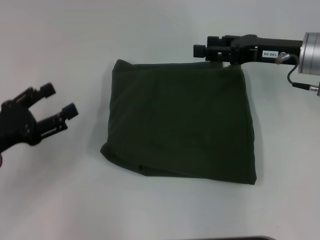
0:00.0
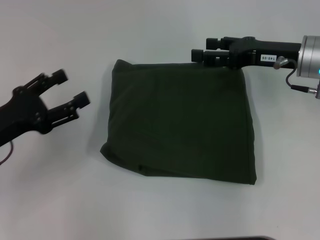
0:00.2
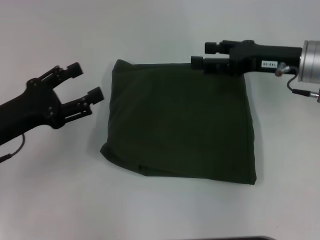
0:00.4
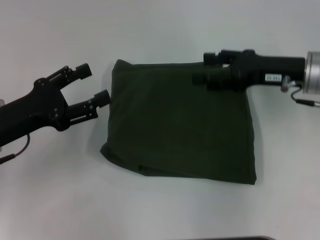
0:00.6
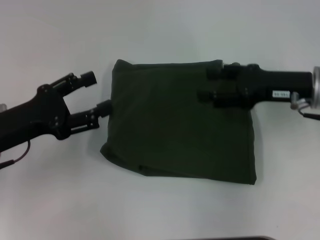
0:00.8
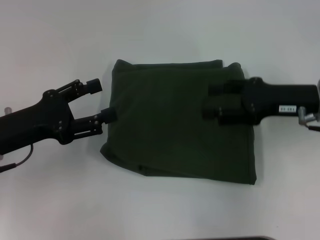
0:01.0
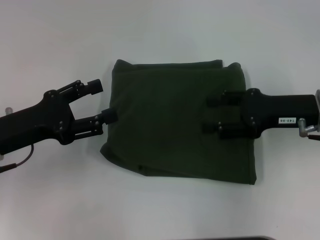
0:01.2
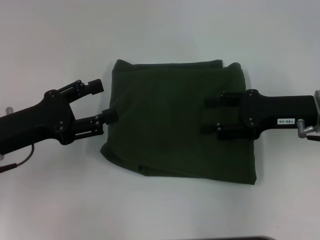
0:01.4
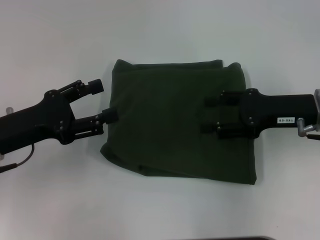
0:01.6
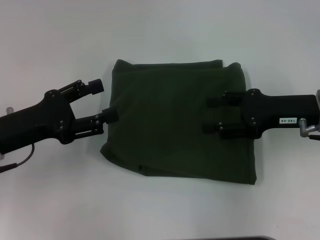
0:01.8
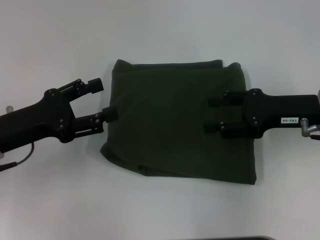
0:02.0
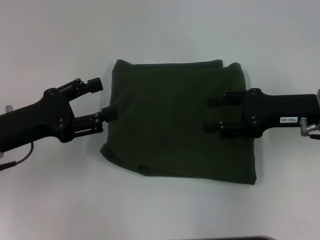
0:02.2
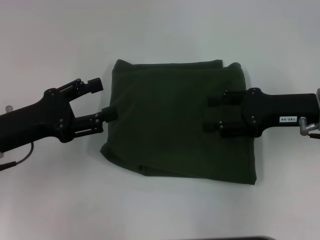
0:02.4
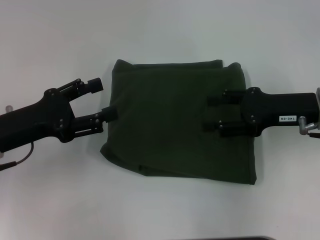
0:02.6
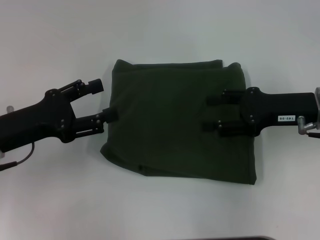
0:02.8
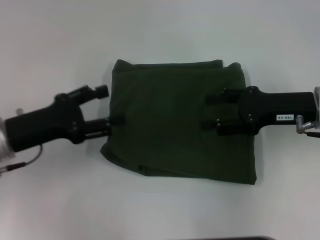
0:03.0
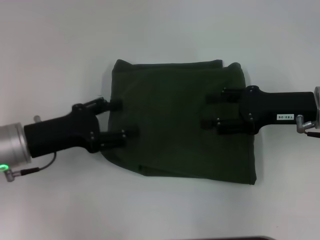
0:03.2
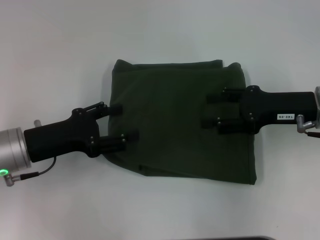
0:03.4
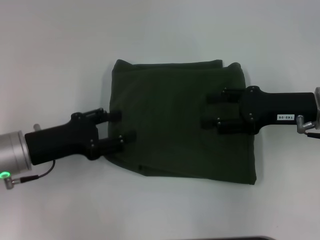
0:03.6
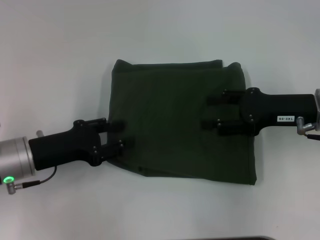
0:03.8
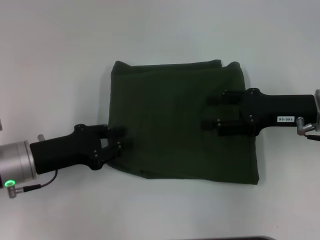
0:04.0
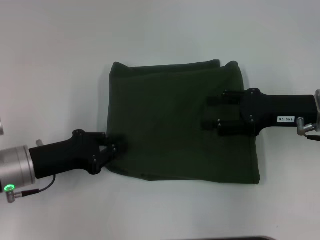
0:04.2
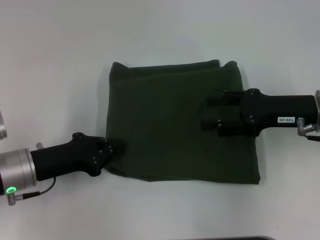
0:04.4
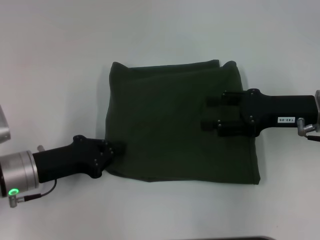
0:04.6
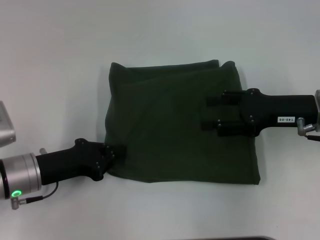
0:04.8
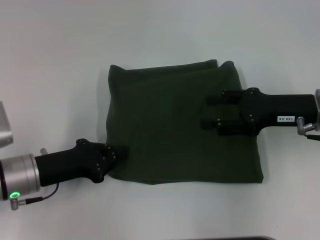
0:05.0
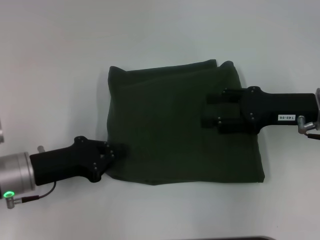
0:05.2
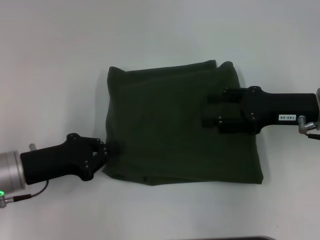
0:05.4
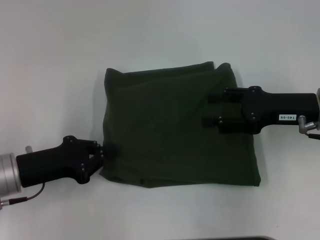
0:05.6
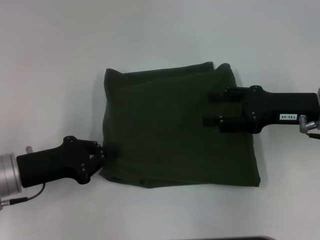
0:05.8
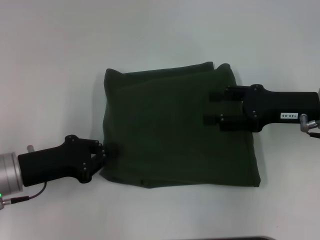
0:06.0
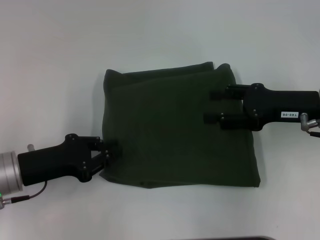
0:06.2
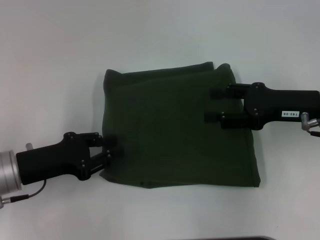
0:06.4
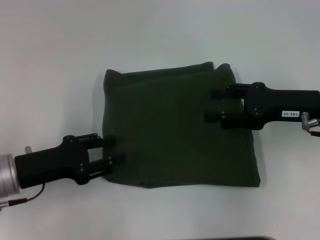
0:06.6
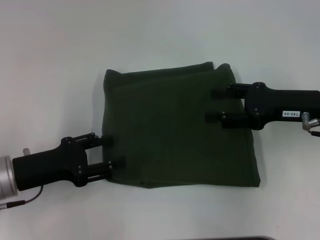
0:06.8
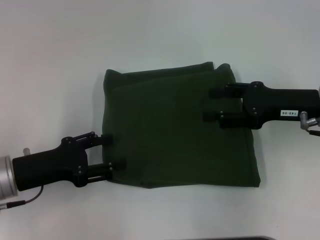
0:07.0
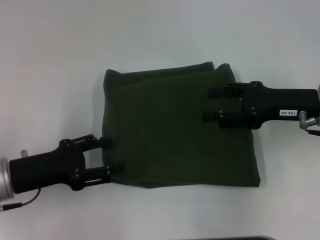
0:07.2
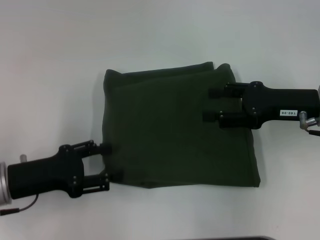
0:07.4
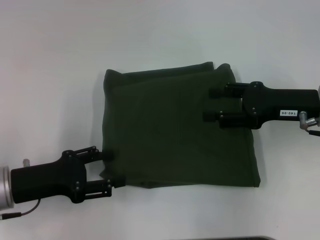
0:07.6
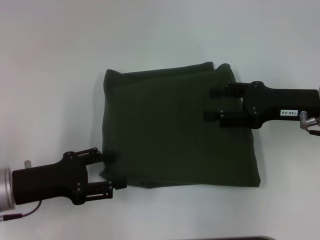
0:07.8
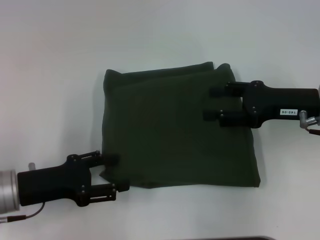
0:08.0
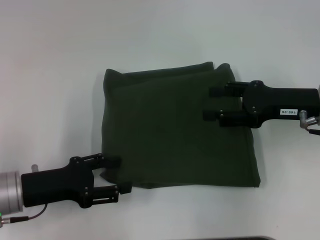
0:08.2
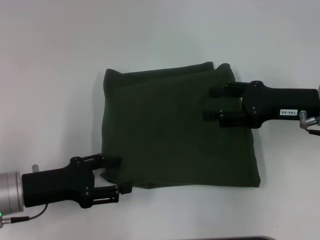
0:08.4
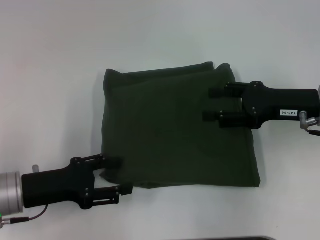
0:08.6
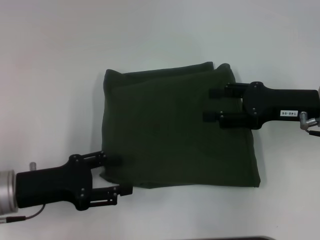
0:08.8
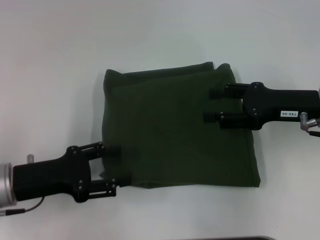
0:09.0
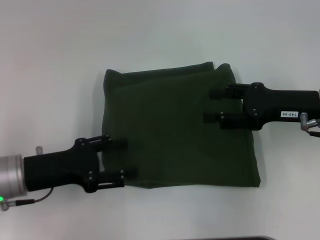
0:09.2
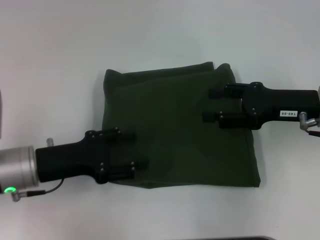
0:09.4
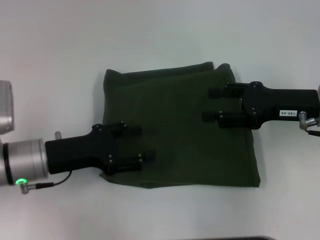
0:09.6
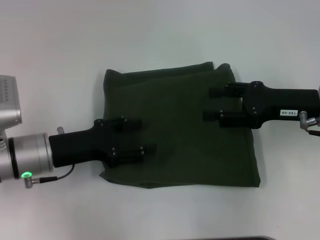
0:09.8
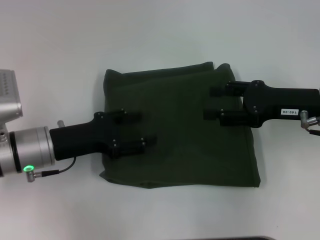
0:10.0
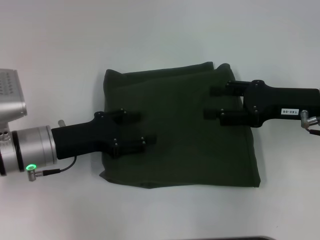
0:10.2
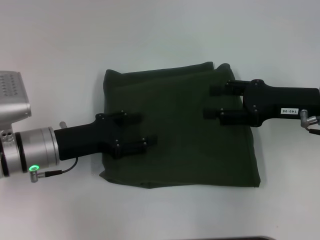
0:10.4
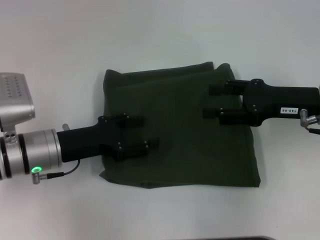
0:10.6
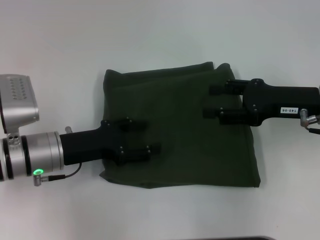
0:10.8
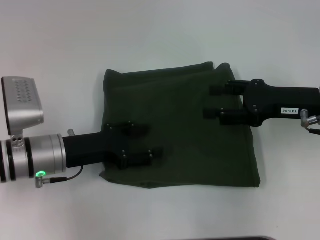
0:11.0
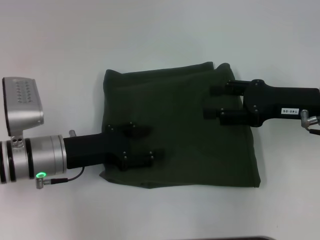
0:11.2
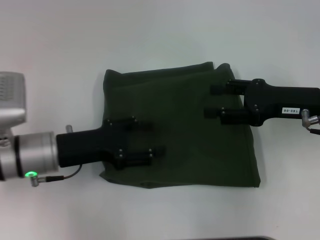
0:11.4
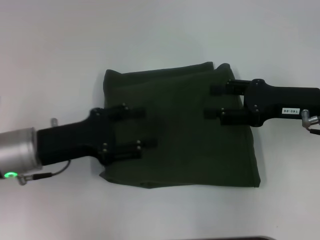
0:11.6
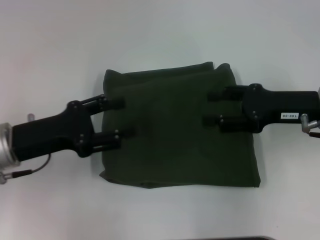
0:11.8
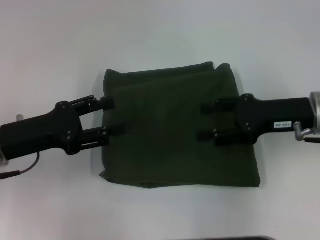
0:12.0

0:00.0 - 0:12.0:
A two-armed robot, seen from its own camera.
0:00.0 - 0:01.6: The right gripper moves backward, roughly 5 cm; the left gripper ends up roughly 5 cm from where it was.
0:01.6 - 0:03.0: The grippers stay close to where they were, moving slightly.
0:03.0 - 0:04.4: The left gripper changes place by approximately 5 cm, and closes.
0:04.4 - 0:06.0: The grippers move only a little.
0:06.0 - 0:07.6: The left gripper opens.
0:07.6 - 0:09.0: There are only small adjustments of the grippers.
0:09.0 - 0:10.4: The left gripper is displaced forward by approximately 5 cm.
0:10.4 - 0:12.0: The left gripper shifts some 5 cm to the left.

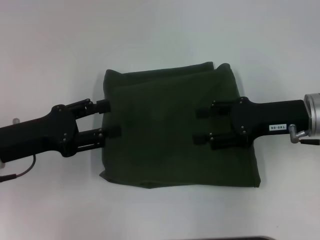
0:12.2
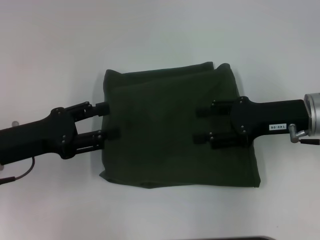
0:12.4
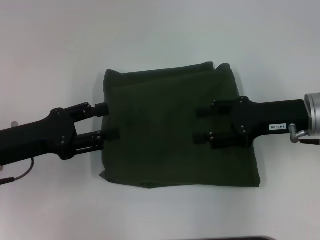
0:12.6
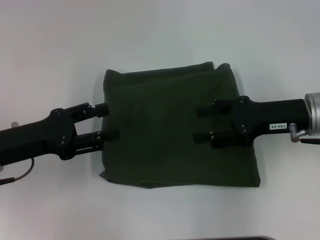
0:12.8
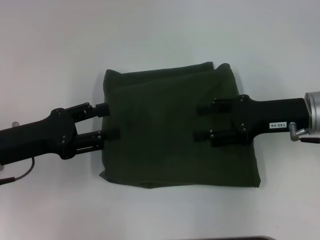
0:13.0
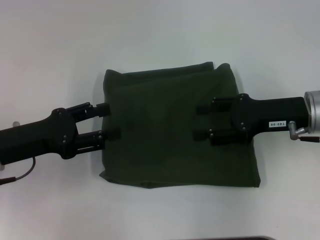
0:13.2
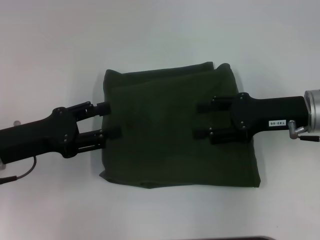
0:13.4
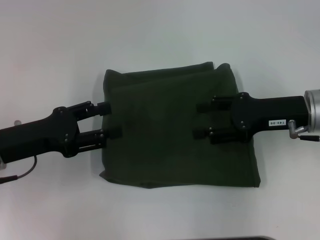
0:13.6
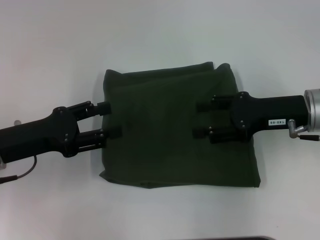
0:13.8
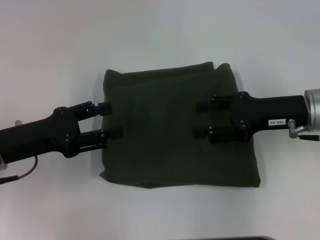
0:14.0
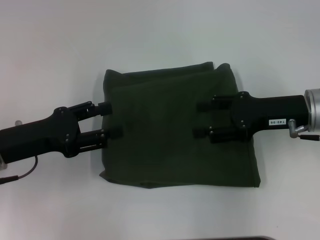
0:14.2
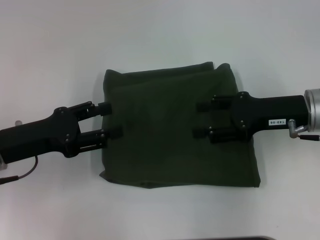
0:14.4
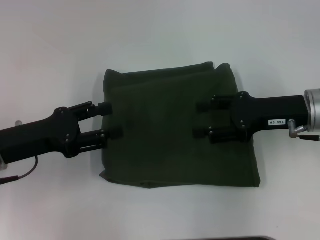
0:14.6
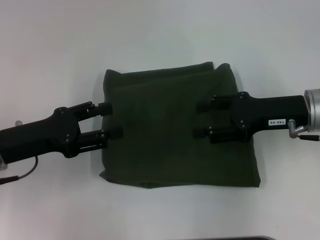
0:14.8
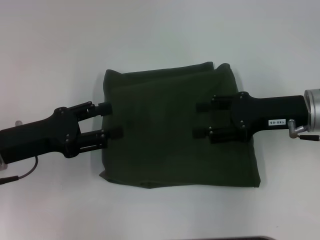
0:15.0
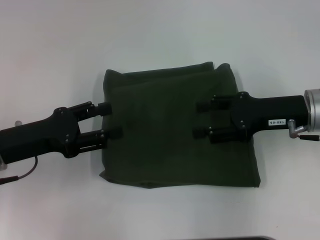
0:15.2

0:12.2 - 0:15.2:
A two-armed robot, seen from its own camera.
0:12.2 - 0:15.2: The two grippers keep their place.

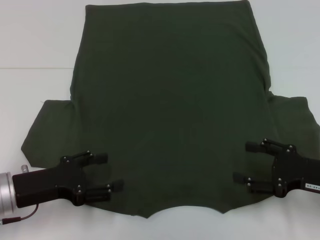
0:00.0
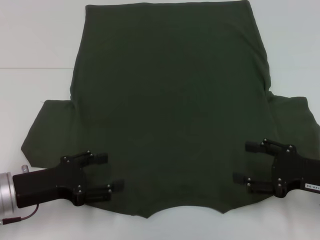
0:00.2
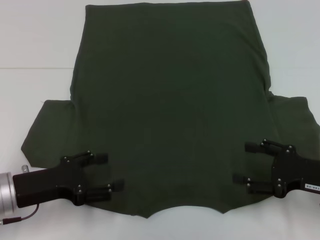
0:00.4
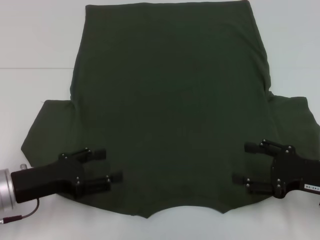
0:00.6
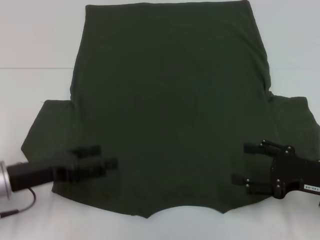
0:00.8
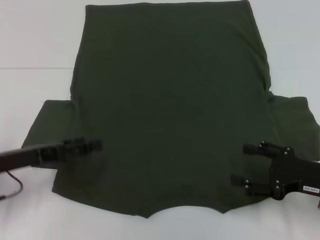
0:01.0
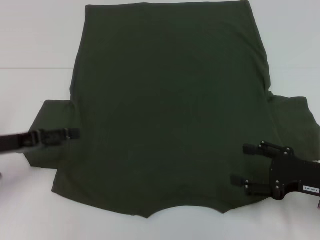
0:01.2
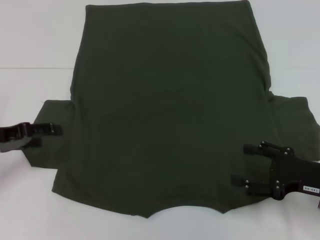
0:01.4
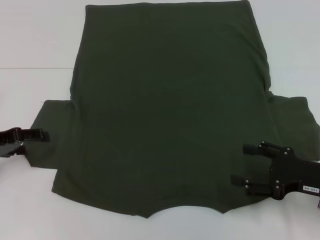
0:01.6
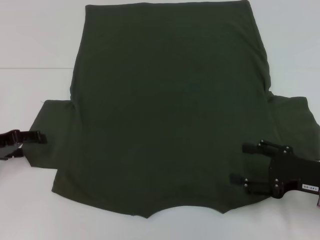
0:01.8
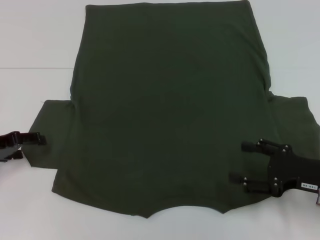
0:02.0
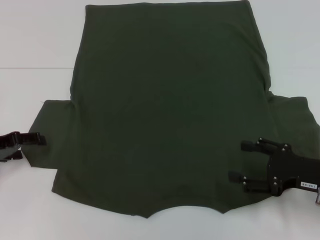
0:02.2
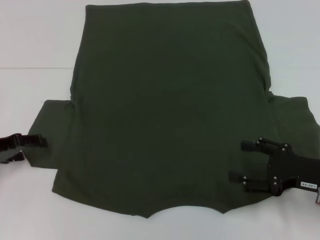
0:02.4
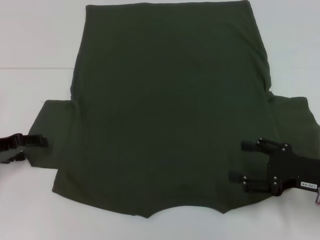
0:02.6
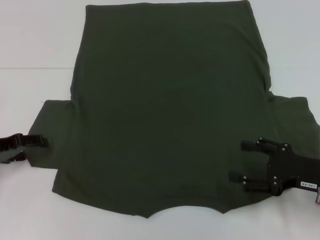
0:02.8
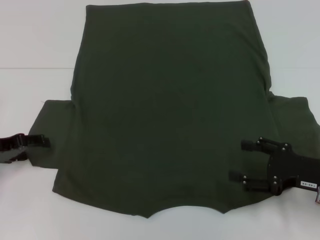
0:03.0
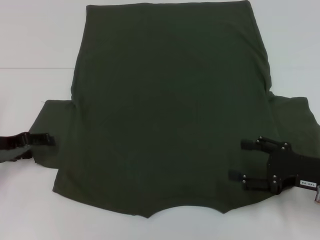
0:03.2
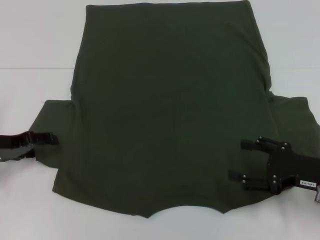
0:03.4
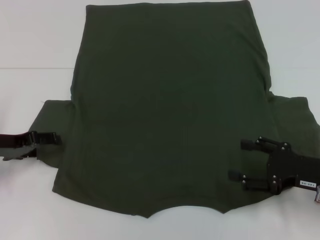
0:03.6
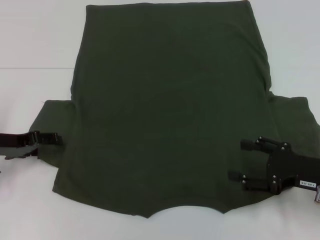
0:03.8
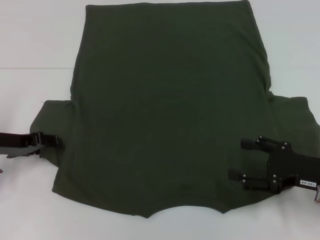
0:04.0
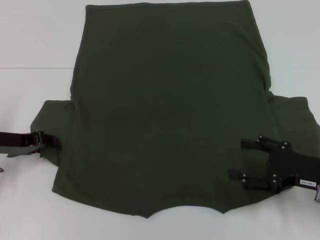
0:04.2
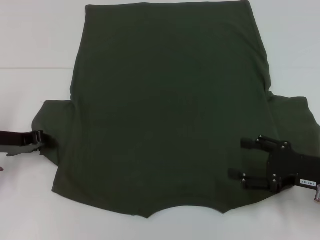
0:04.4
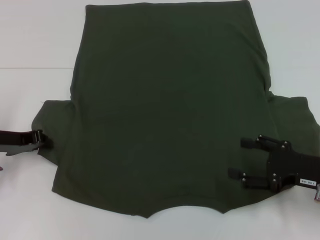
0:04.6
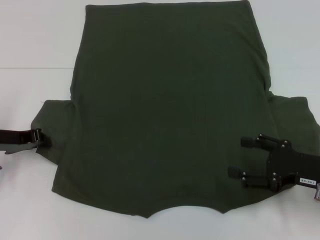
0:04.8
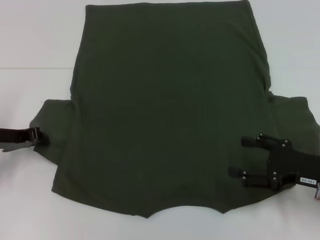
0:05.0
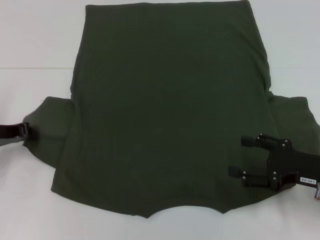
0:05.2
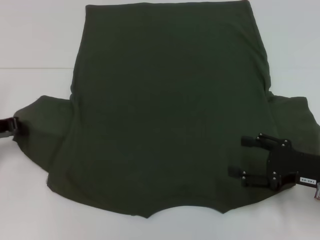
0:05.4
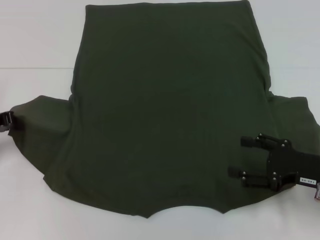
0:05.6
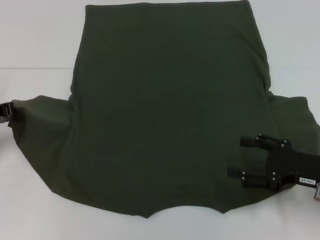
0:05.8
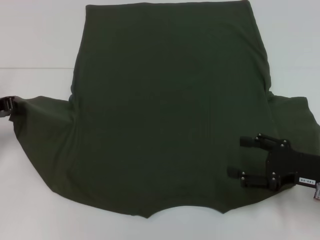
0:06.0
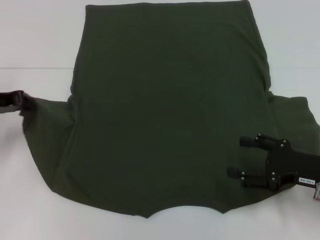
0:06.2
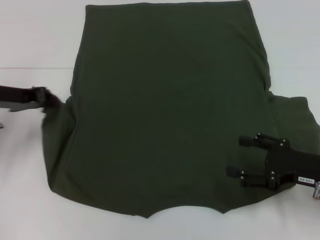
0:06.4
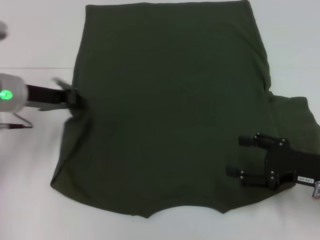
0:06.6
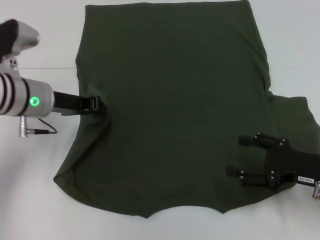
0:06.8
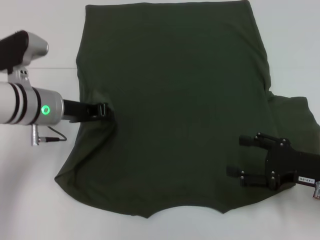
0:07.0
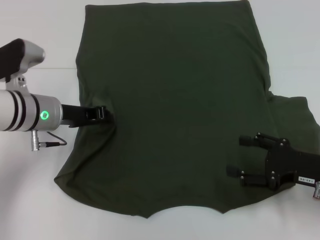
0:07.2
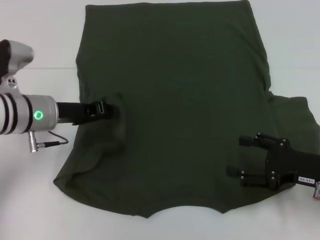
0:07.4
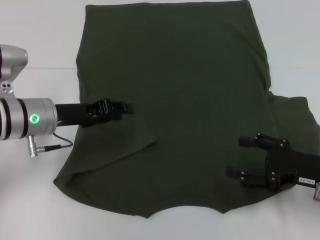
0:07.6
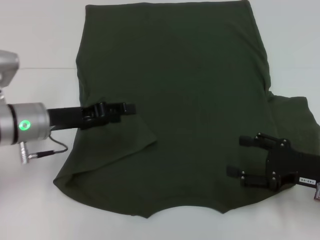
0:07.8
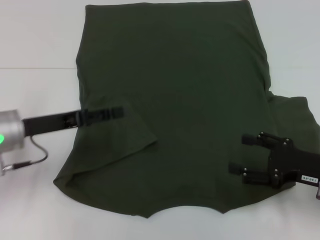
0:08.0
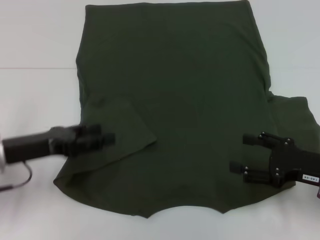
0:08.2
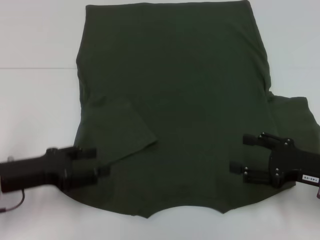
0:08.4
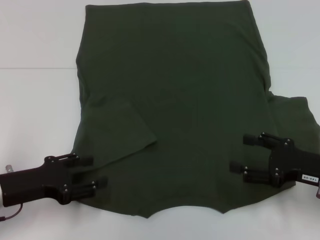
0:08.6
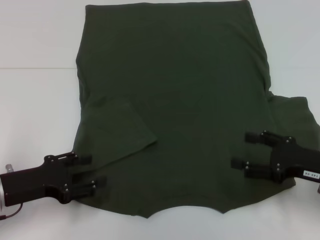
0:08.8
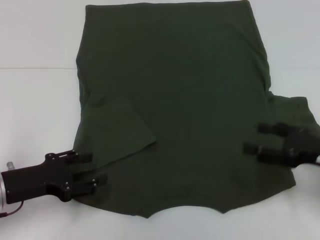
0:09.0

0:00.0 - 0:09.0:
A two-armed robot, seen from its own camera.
Step, 0:00.0 - 0:07.4: Fold the bottom left sleeve with your left hand.
0:00.0 - 0:01.6: The left gripper is displaced to the left and forward by approximately 10 cm.
0:01.6 - 0:03.0: The grippers move only a little.
0:03.0 - 0:04.4: The left gripper closes up.
0:04.4 - 0:06.0: The left gripper moves upward, some 5 cm, and closes up.
0:06.0 - 0:07.6: The left gripper is displaced to the right by some 10 cm.
0:07.6 - 0:09.0: The left gripper is displaced backward and to the left by approximately 10 cm, and opens up.
